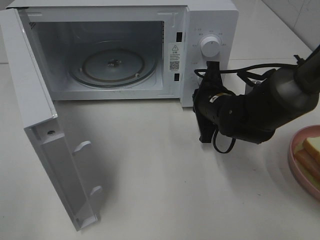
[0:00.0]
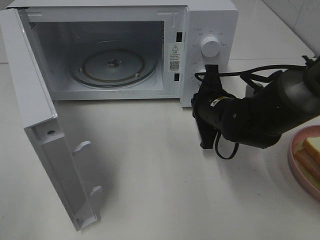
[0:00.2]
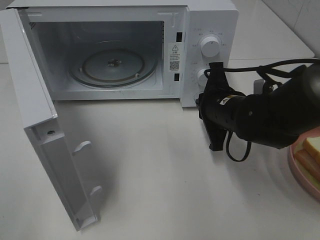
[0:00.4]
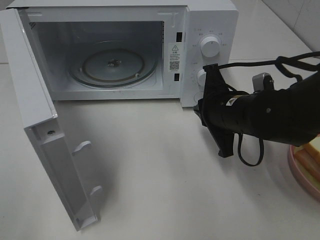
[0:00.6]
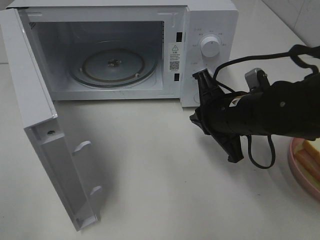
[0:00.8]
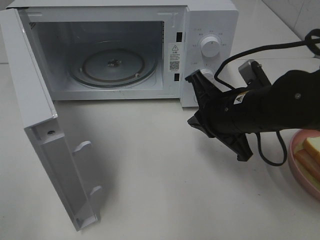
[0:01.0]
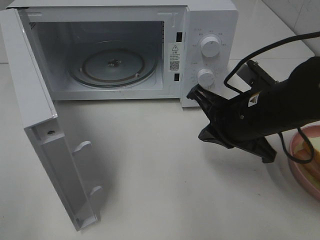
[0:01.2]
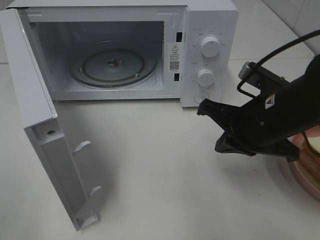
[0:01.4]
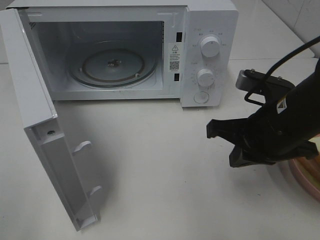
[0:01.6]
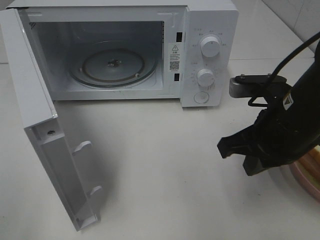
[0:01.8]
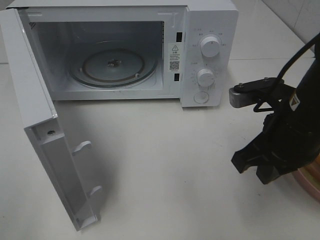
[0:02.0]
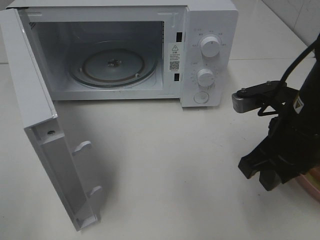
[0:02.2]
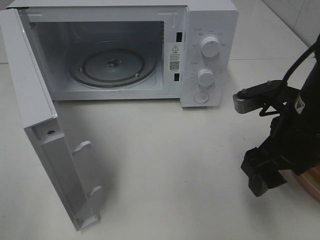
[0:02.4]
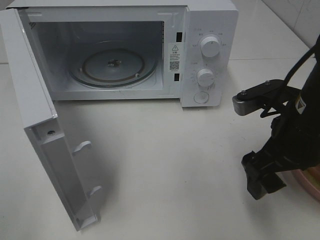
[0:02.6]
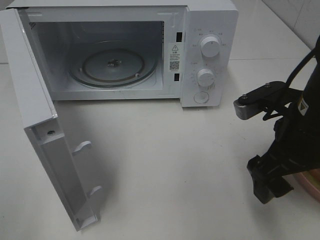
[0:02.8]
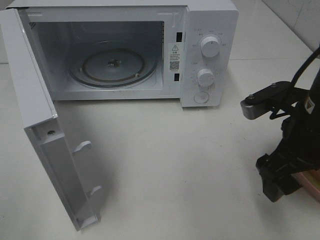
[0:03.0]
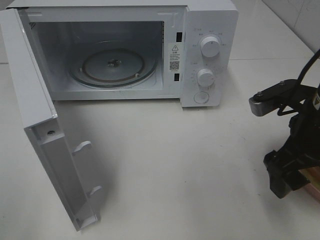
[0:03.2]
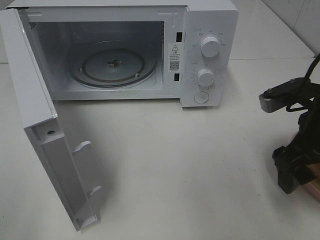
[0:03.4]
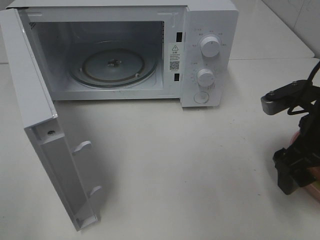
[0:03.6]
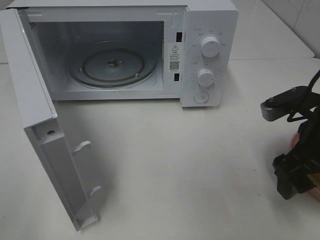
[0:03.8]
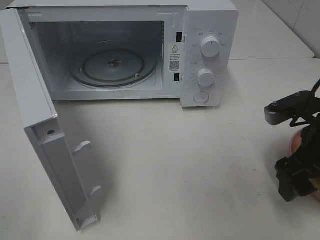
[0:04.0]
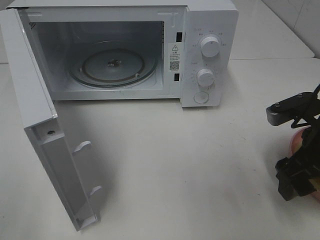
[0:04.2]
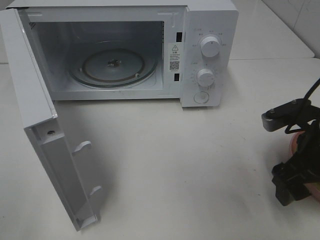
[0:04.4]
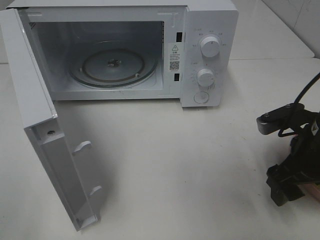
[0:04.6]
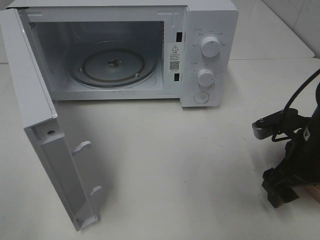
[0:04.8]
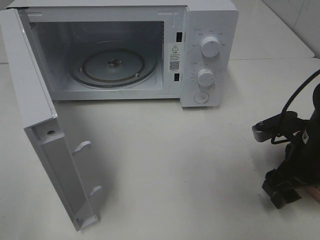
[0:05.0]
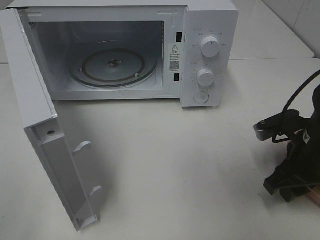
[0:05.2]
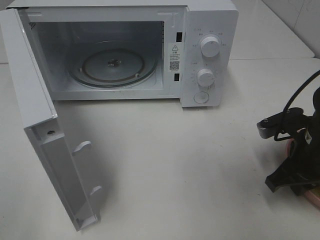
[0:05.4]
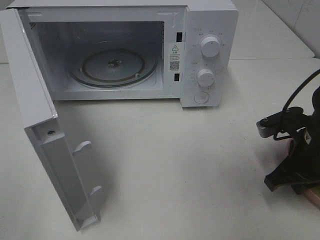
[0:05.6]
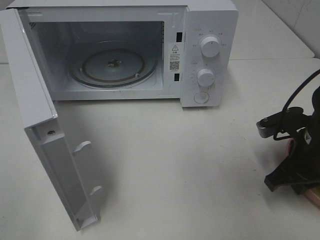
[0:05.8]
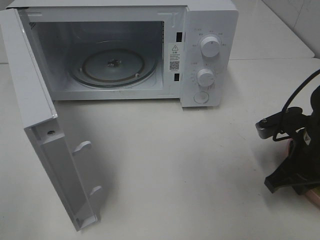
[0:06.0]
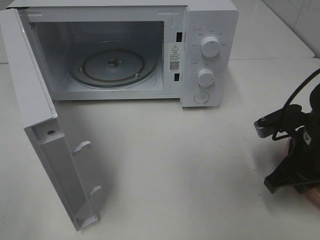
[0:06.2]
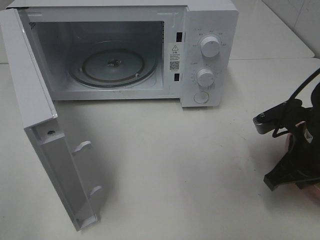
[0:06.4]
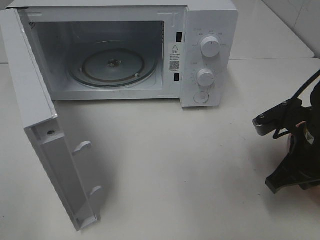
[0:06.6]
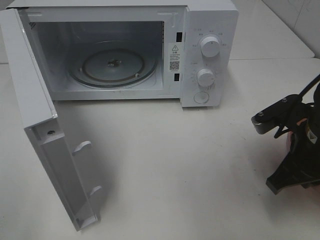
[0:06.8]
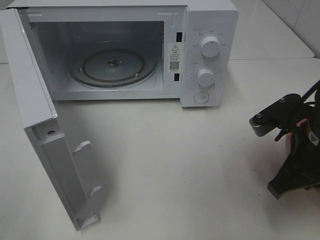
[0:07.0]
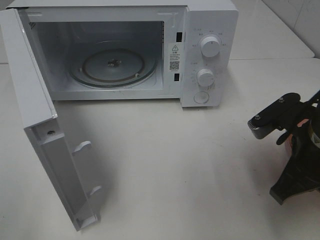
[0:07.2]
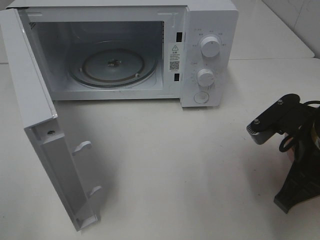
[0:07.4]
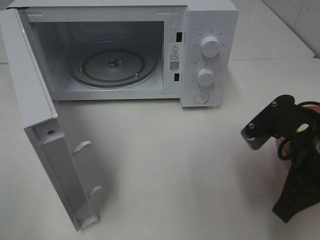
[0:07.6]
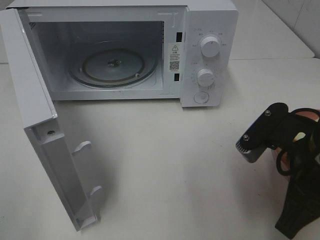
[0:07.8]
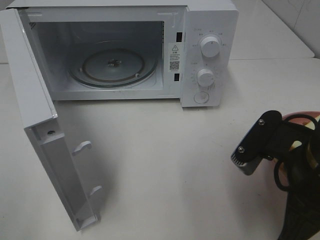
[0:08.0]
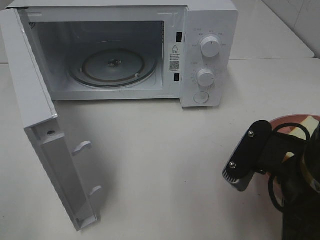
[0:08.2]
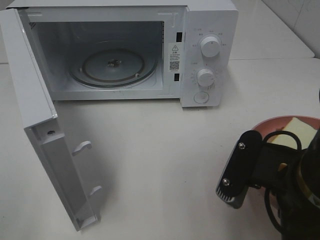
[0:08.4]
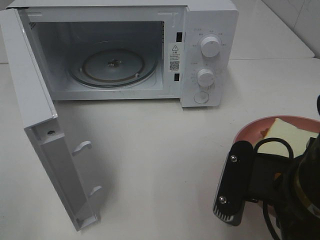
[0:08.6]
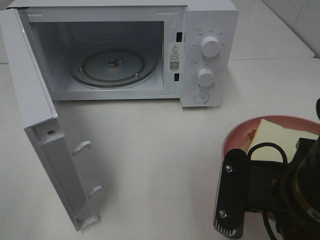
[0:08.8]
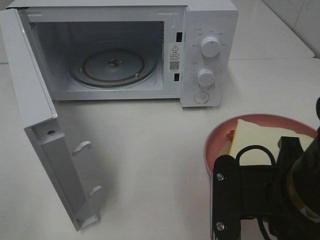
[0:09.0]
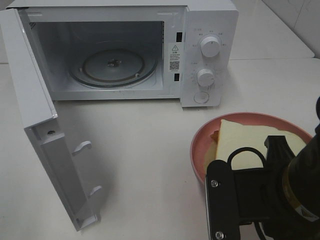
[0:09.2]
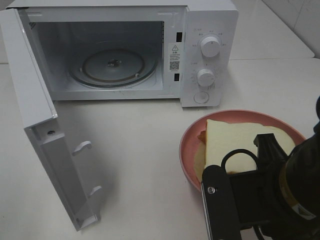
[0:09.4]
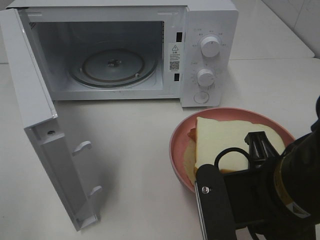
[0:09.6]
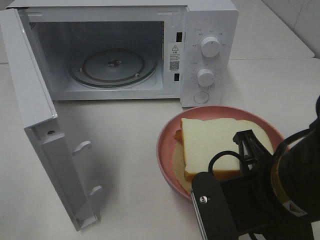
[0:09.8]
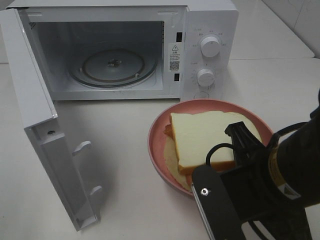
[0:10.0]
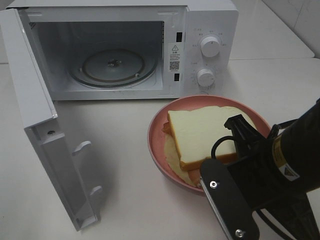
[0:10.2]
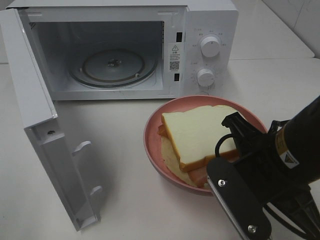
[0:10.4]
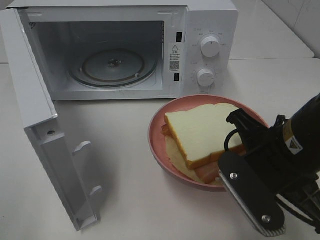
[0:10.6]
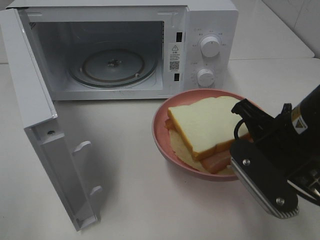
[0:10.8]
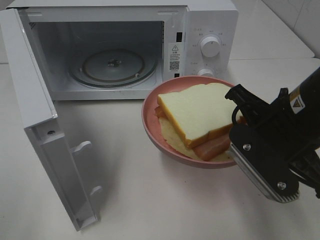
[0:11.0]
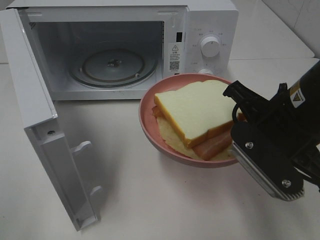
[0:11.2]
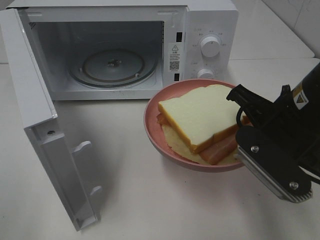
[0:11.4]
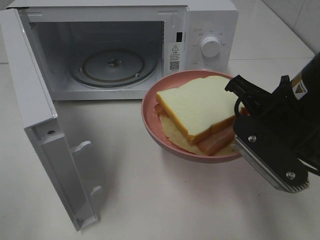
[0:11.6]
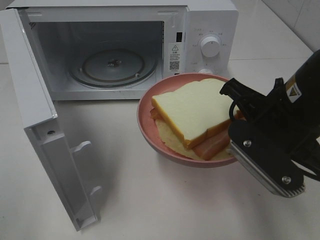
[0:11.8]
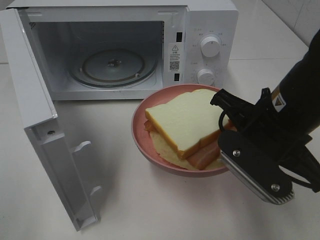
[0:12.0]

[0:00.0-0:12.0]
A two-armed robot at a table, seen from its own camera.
Task of the whole recording: Heat Sandwich.
Step, 0:00.6 to 0:05.6: Right hand: grab the plate with the sandwich.
0:00.0 to 0:01.6: The right gripper travels backward and upward by roughly 15 cm.
0:01.6 to 0:03.0: The right gripper opens.
0:03.0 to 0:04.4: The right gripper moves some 5 cm.
0:04.4 to 0:06.0: The right gripper closes up.
0:06.0 to 0:07.6: The right gripper travels upward, backward and to the left by some 10 cm.
0:07.6 to 0:09.0: The right gripper is displaced backward and to the left by approximately 10 cm.

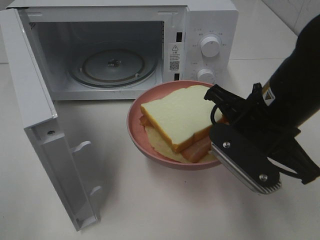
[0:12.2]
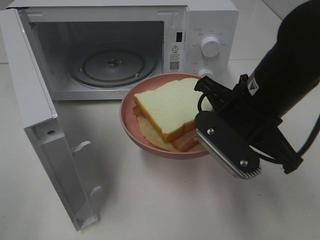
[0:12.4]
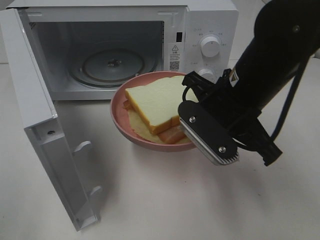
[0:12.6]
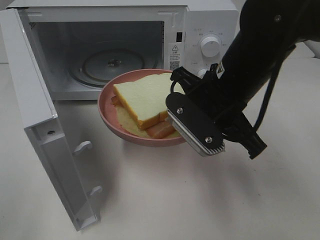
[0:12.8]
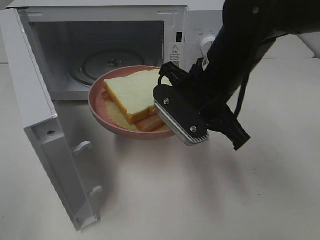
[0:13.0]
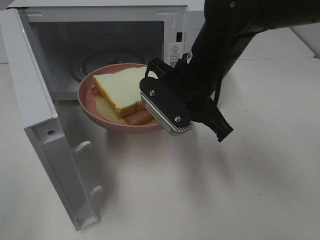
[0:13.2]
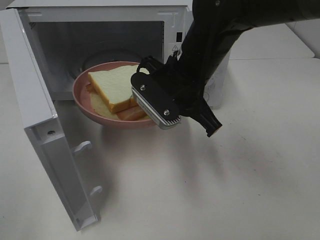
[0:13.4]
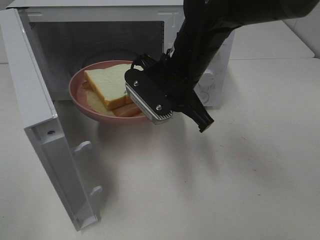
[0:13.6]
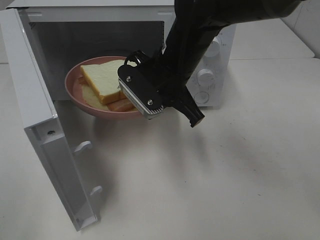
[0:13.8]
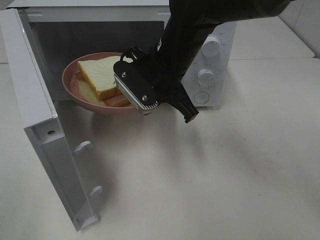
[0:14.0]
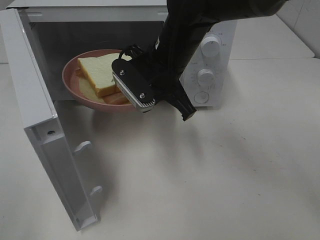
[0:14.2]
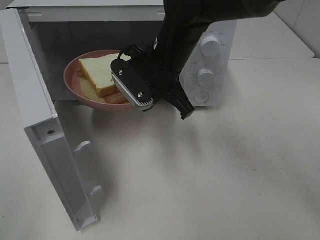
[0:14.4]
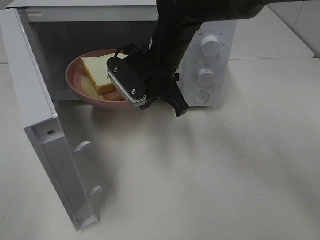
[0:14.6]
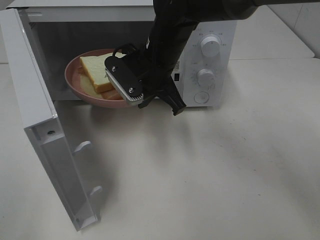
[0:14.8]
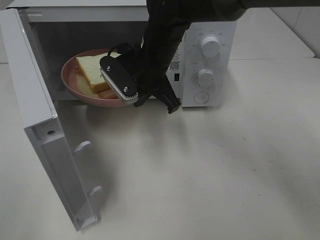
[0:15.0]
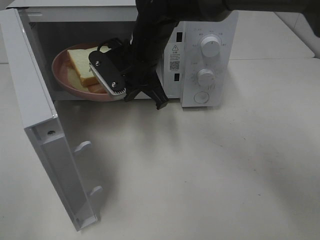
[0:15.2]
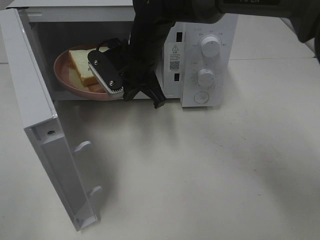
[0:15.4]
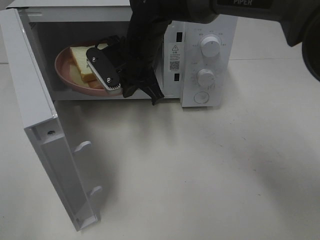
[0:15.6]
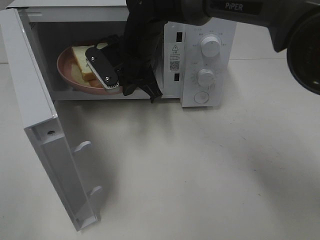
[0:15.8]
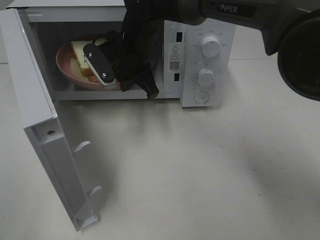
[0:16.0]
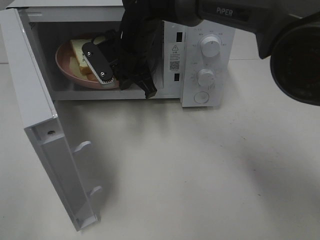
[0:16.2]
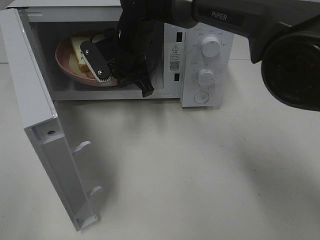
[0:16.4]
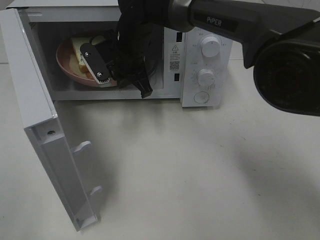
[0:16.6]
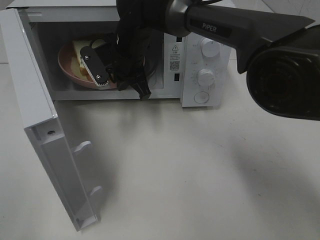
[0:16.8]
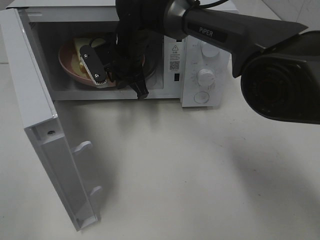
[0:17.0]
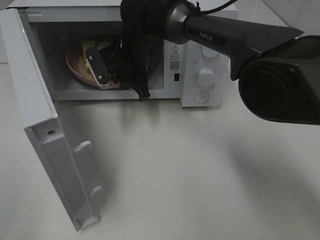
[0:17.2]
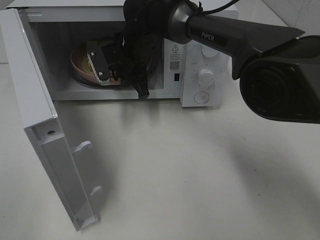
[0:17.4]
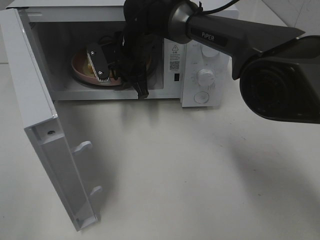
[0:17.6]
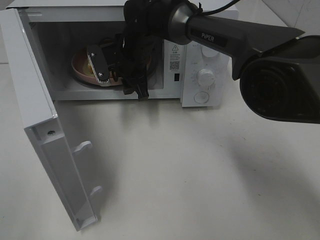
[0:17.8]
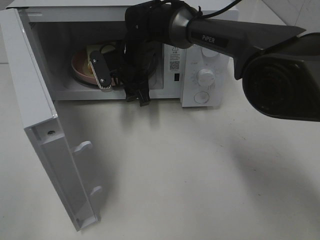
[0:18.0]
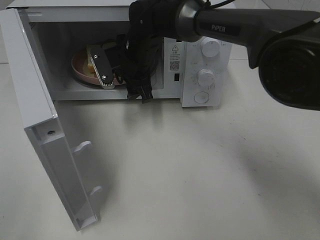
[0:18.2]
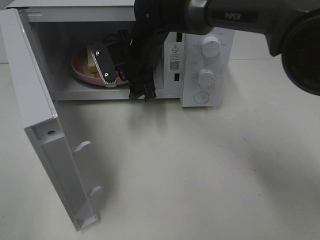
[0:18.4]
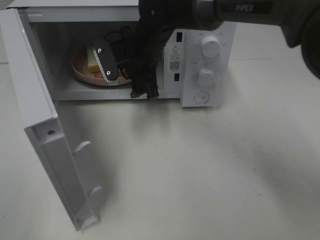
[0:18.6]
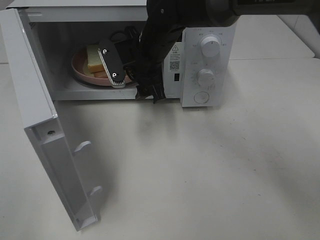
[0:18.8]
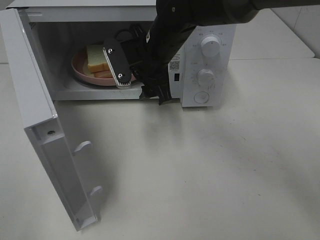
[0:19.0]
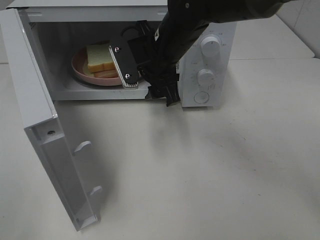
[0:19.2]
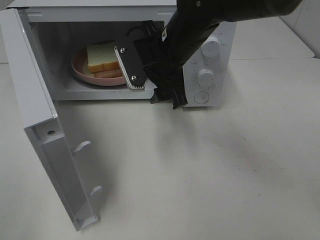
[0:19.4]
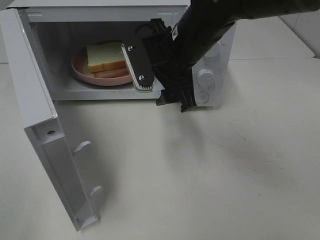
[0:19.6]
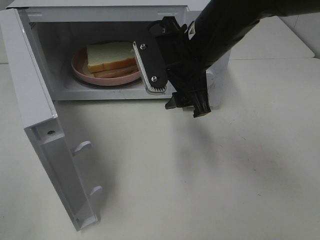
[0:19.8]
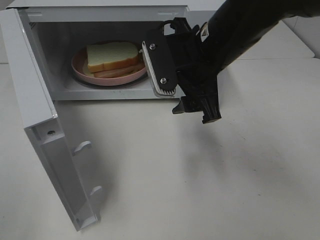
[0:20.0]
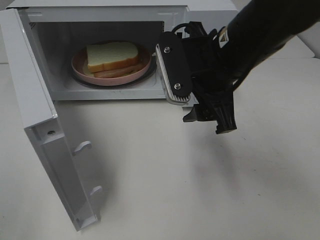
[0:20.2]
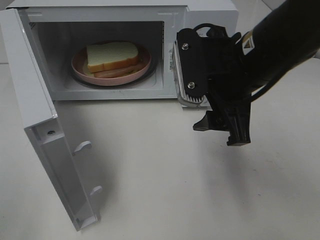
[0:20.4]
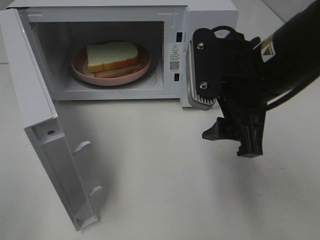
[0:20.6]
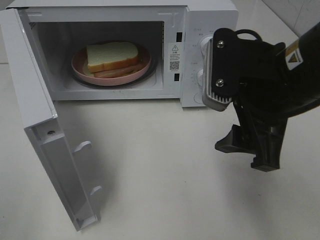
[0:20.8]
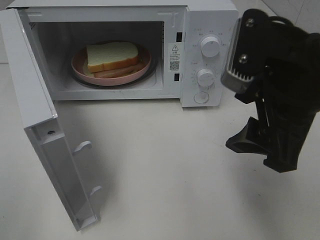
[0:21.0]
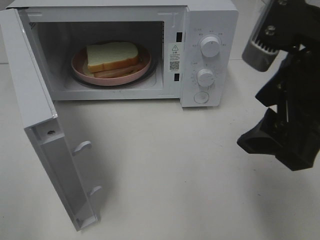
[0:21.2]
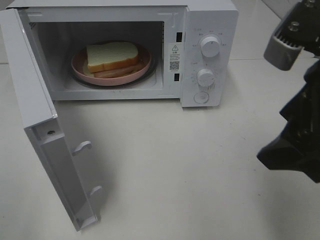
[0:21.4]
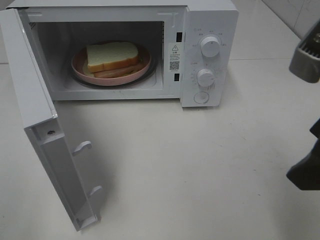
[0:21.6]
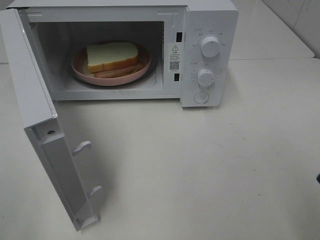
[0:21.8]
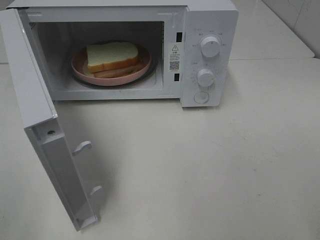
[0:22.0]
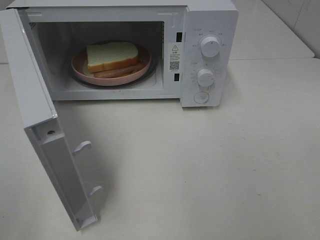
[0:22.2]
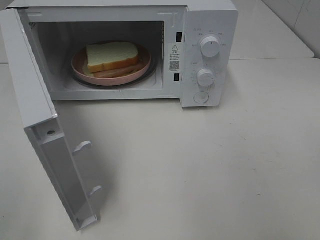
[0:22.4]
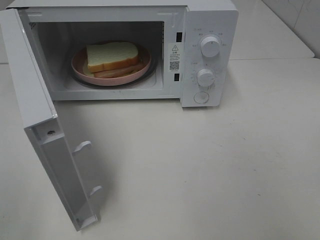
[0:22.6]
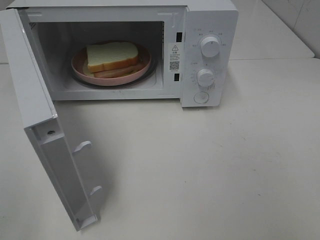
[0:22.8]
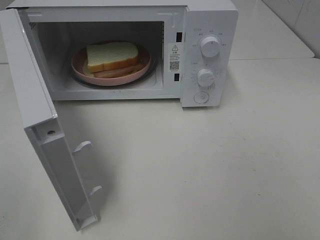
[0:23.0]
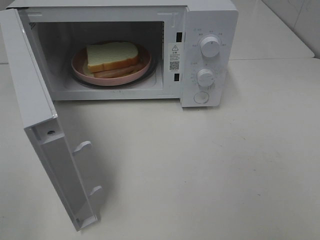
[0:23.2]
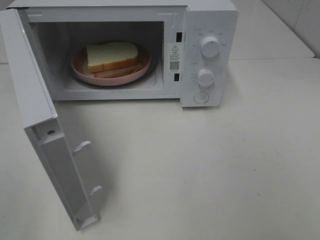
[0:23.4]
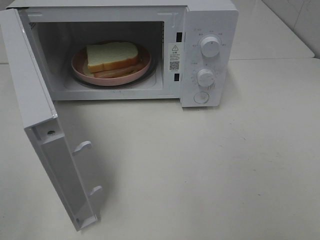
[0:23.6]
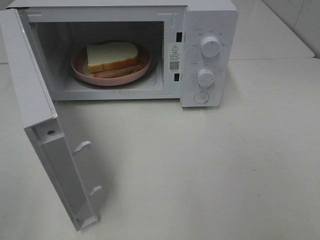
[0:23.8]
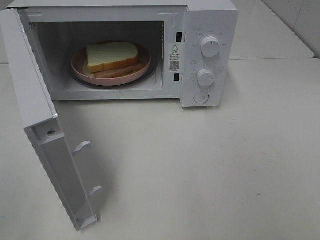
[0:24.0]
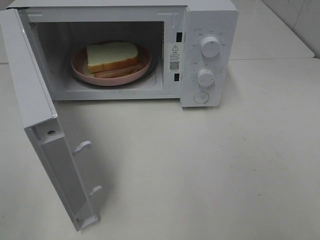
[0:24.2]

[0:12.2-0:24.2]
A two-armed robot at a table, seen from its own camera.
Task of the whole recording: Heat Sandwich.
Step, 0:12.2 to 0:18.8: Right hand: place the plate in the microwave.
0:12.2 to 0:13.8: The right gripper travels forward and to the left by some 15 cm.
0:13.8 to 0:15.2: The right gripper shifts approximately 5 cm forward.
0:15.2 to 0:16.6: The right gripper moves approximately 5 cm.
0:16.6 to 0:18.2: The right gripper opens.
0:18.2 to 0:19.8: The right gripper is displaced backward, to the right and upward by approximately 20 cm.
0:19.8 to 0:21.2: The right gripper is displaced backward, to the right and upward by roughly 20 cm.
0:21.2 to 0:22.6: The right gripper heads backward and to the right, covering approximately 15 cm.
